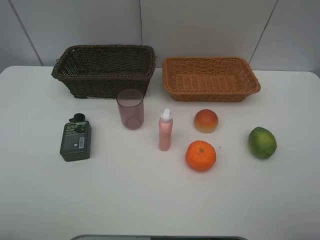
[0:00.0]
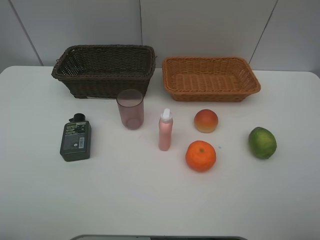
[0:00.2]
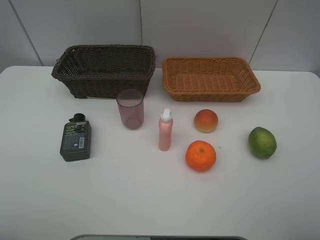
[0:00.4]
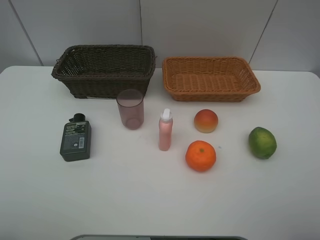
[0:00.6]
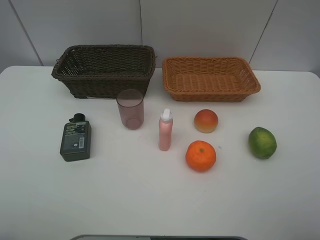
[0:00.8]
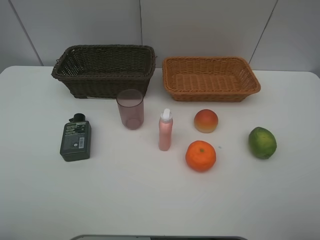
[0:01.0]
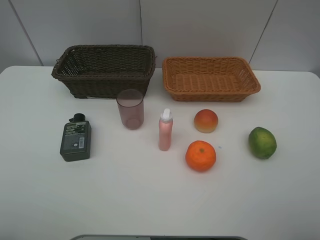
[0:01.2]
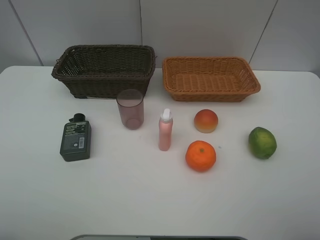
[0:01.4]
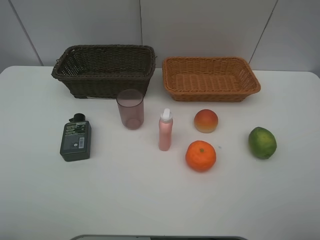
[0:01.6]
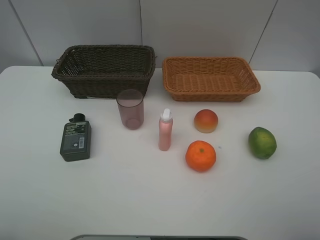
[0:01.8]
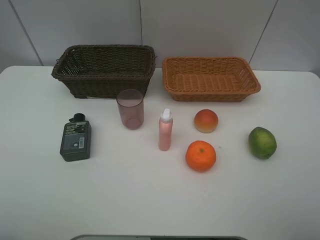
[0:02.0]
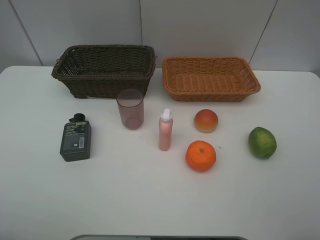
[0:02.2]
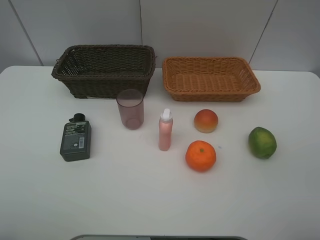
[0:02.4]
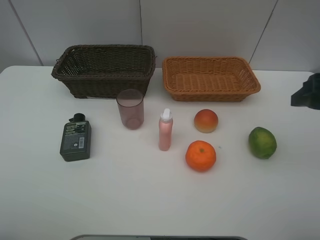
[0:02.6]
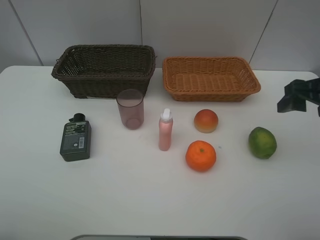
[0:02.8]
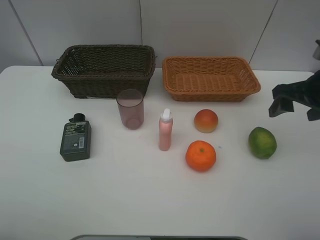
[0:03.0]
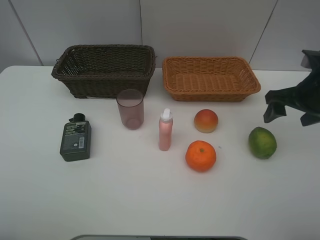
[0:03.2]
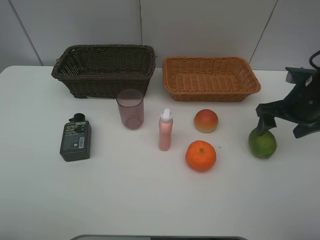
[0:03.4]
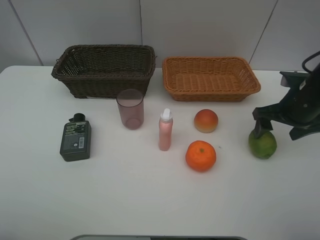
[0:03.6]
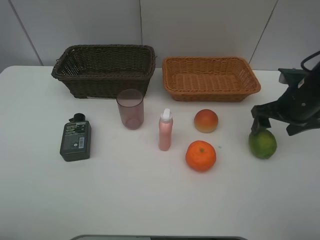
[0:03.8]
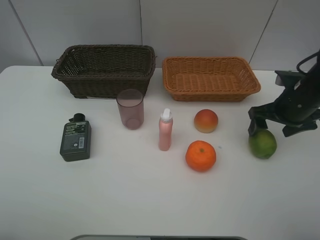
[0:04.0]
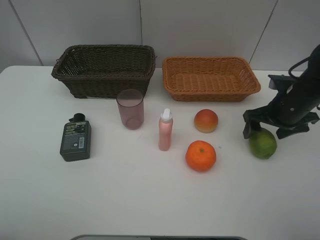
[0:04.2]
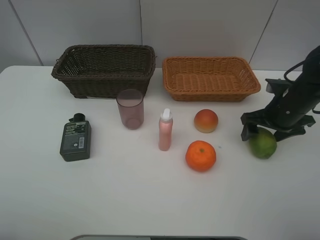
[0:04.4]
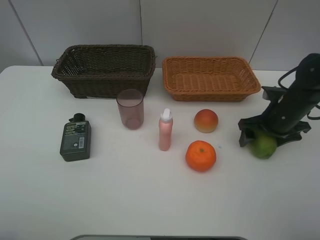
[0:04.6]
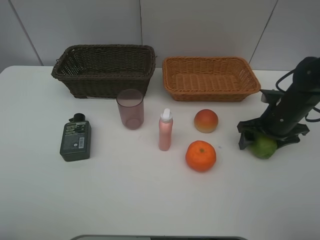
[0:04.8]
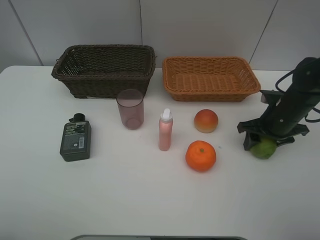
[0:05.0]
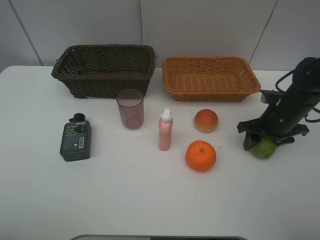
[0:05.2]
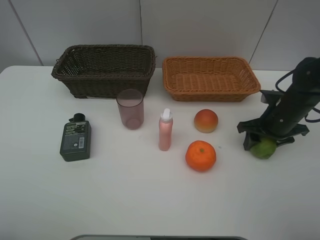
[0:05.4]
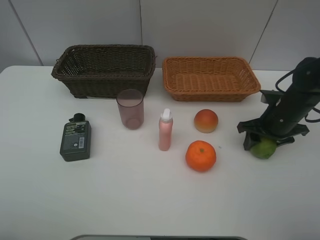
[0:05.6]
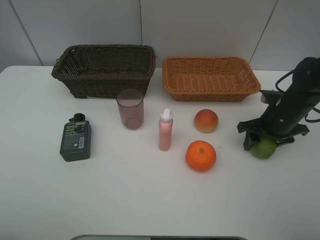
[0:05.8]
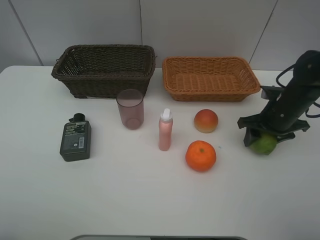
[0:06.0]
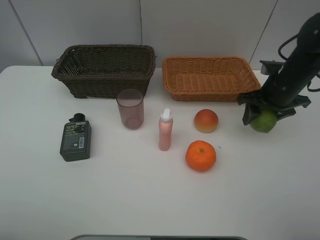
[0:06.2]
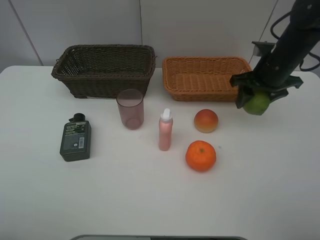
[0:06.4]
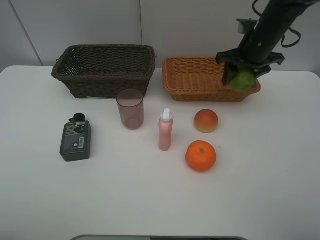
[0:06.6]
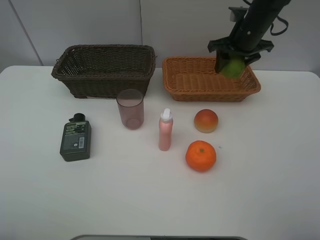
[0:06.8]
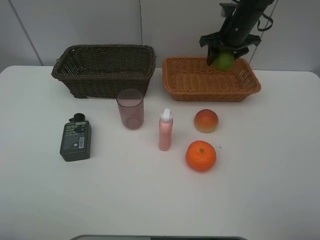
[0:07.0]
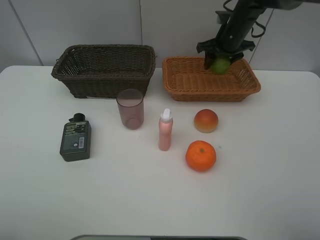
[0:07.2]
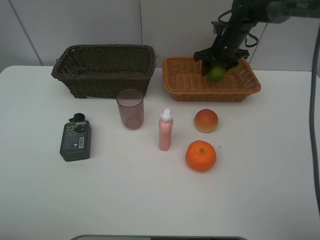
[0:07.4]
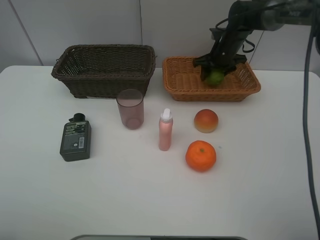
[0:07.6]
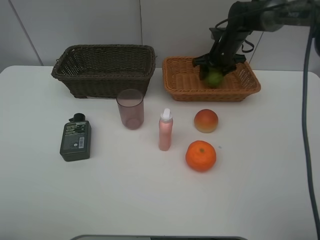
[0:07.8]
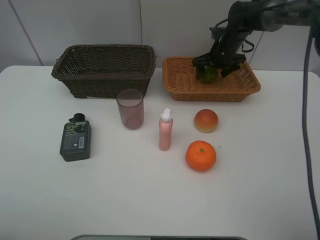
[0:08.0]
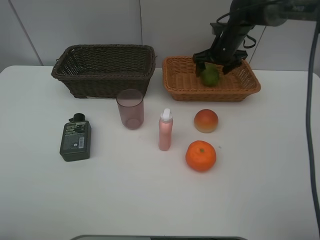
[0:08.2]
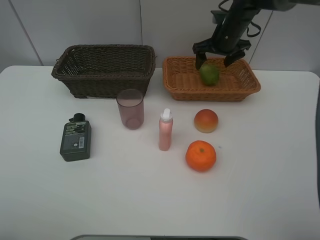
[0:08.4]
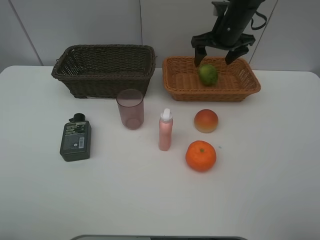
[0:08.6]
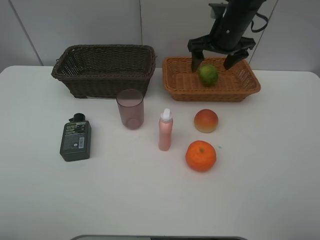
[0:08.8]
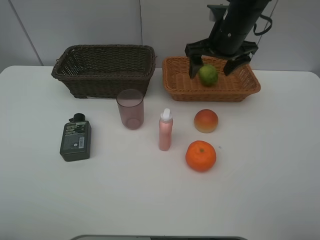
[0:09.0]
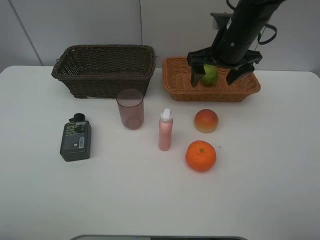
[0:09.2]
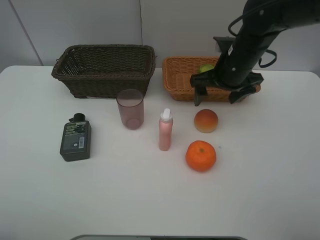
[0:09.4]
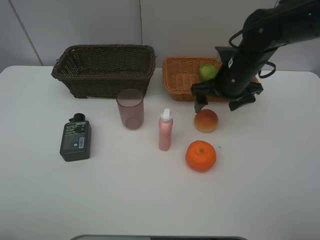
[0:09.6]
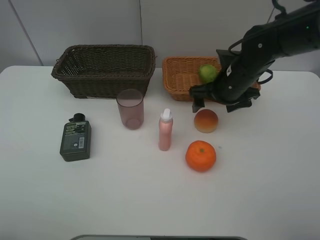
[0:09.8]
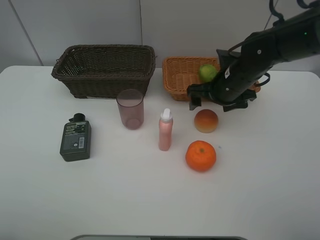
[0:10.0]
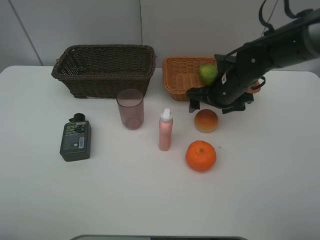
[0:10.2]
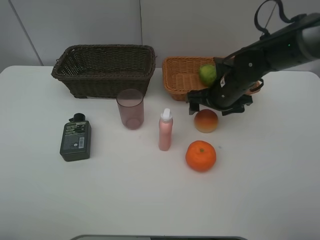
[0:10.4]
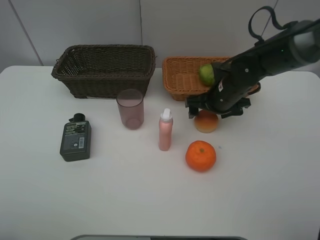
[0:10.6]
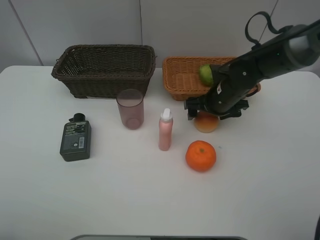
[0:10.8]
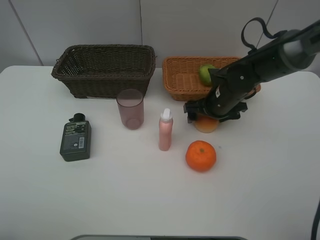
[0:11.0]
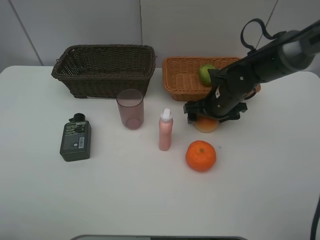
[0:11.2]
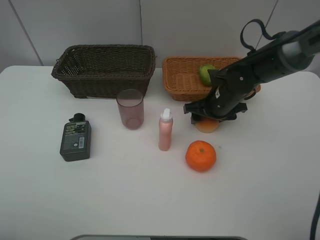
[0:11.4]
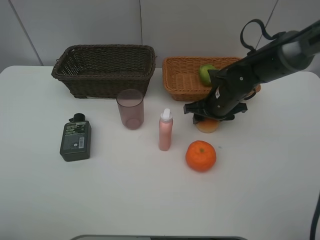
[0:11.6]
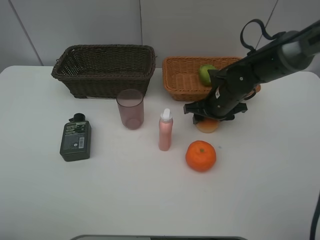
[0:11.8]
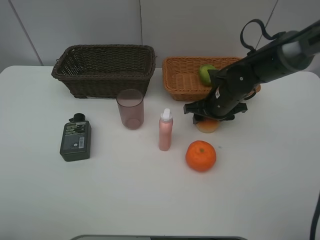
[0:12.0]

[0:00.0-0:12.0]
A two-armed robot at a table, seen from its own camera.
Task of the whole recording: place multiple objects separately in different baskets.
0:00.0 to 0:01.6: The two grippers keep their place.
0:01.6 to 0:03.0: The right gripper shifts roughly 25 cm forward.
0:03.0 to 0:04.4: The right gripper heads downward, covering about 10 cm.
0:04.4 to 0:06.0: The right gripper closes up.
0:06.0 to 0:07.6: The right gripper moves forward and to the left, roughly 20 cm.
0:07.6 to 0:09.0: The right gripper goes about 15 cm backward and upward, and opens its fingers.
0:09.0 to 0:10.4: The right gripper shifts about 10 cm downward.
0:10.4 to 0:12.0: The right gripper closes.

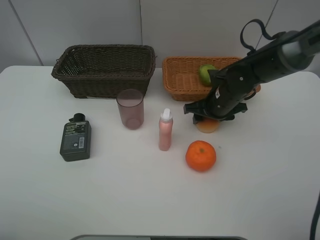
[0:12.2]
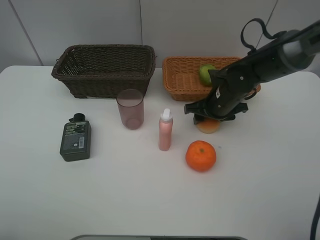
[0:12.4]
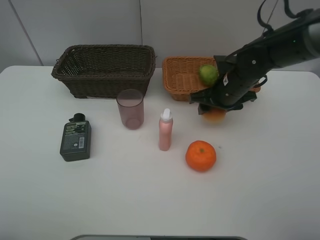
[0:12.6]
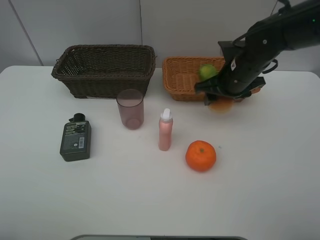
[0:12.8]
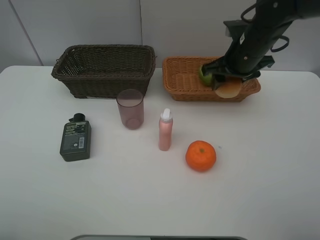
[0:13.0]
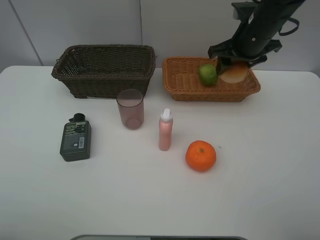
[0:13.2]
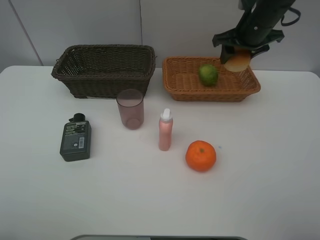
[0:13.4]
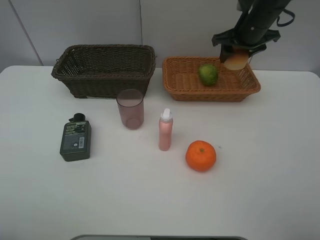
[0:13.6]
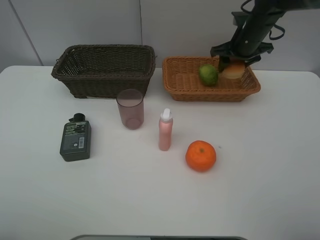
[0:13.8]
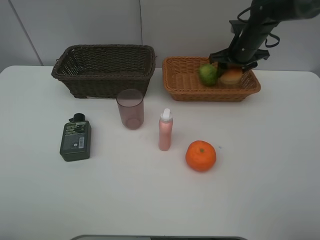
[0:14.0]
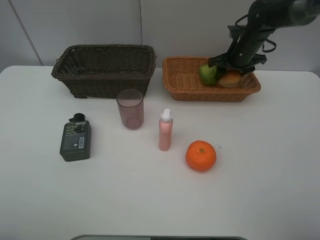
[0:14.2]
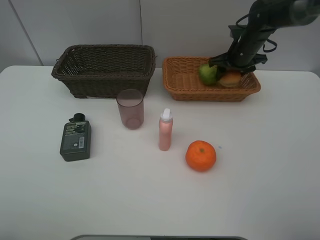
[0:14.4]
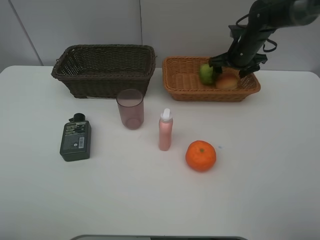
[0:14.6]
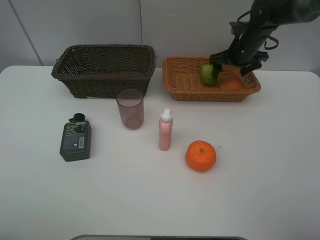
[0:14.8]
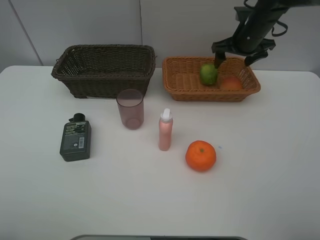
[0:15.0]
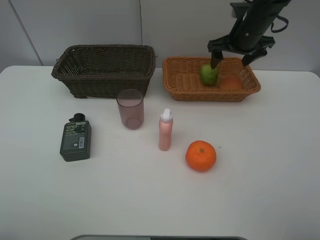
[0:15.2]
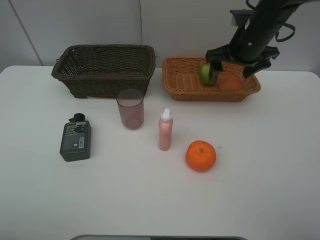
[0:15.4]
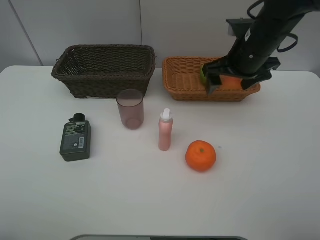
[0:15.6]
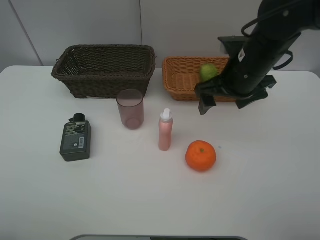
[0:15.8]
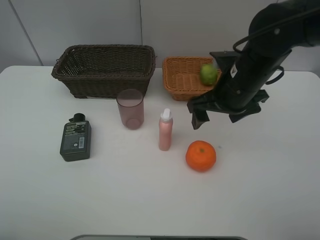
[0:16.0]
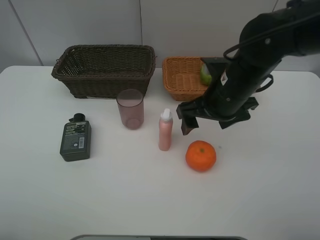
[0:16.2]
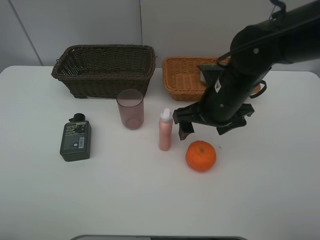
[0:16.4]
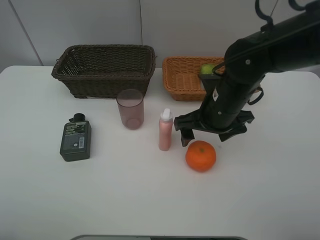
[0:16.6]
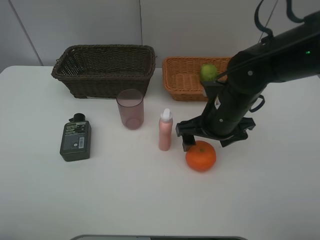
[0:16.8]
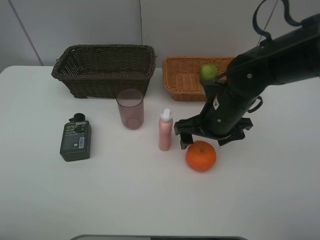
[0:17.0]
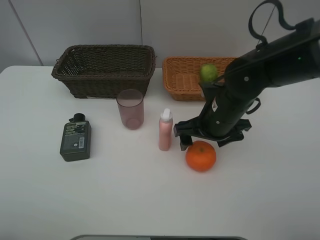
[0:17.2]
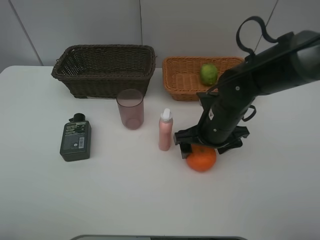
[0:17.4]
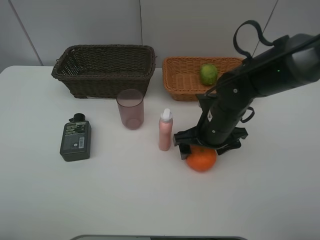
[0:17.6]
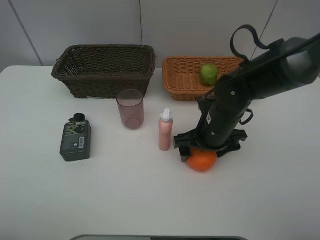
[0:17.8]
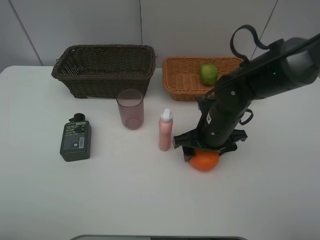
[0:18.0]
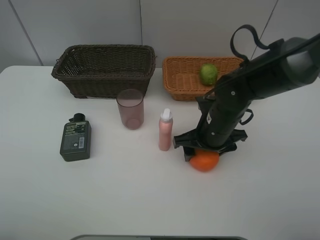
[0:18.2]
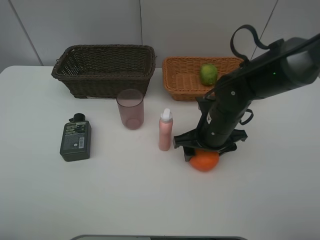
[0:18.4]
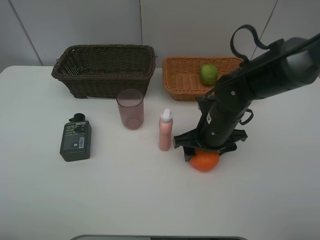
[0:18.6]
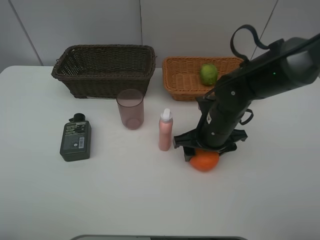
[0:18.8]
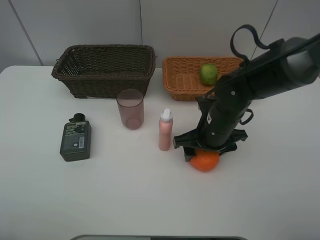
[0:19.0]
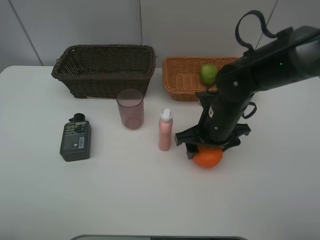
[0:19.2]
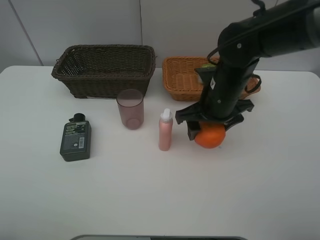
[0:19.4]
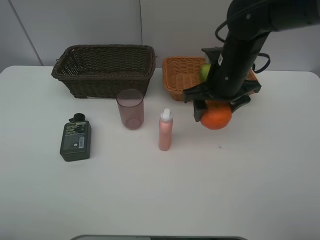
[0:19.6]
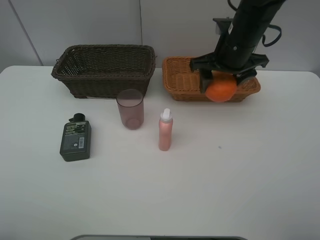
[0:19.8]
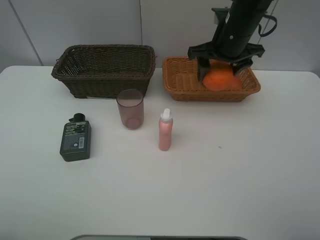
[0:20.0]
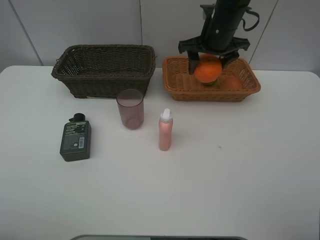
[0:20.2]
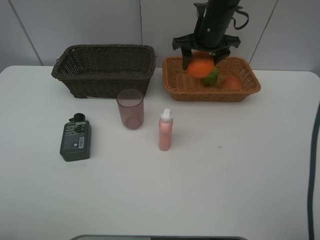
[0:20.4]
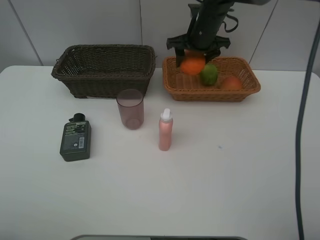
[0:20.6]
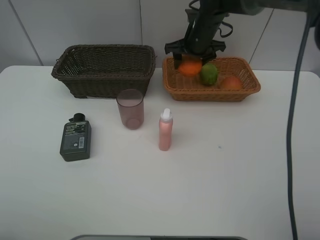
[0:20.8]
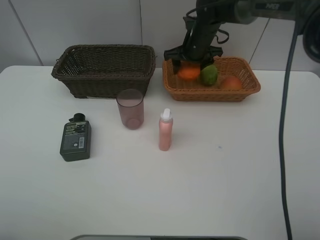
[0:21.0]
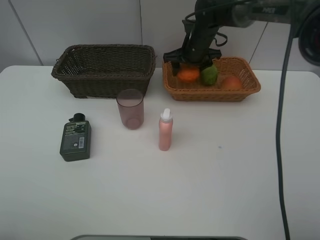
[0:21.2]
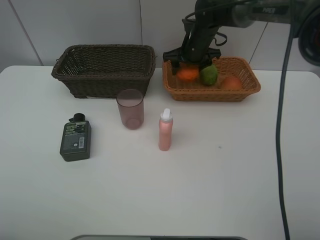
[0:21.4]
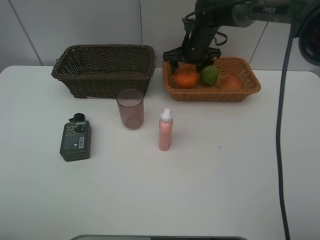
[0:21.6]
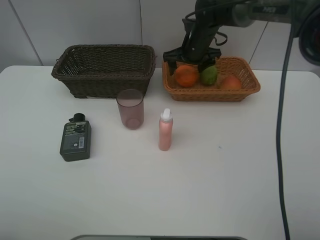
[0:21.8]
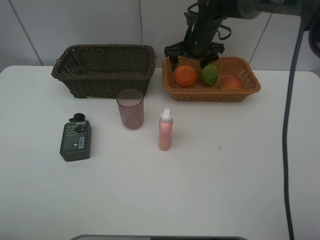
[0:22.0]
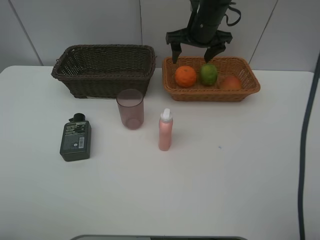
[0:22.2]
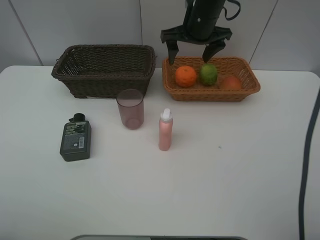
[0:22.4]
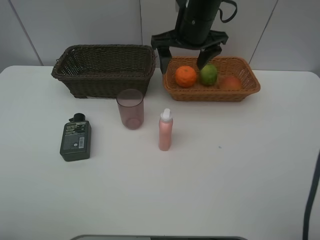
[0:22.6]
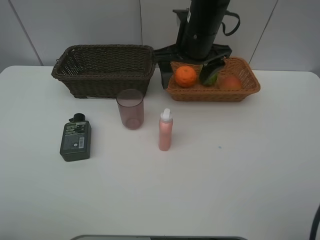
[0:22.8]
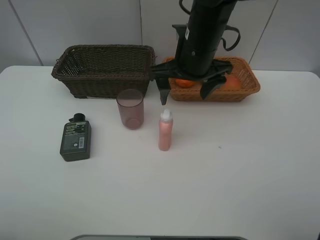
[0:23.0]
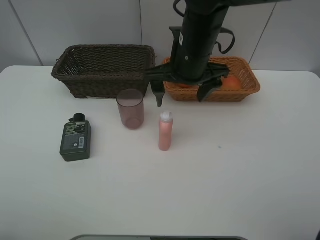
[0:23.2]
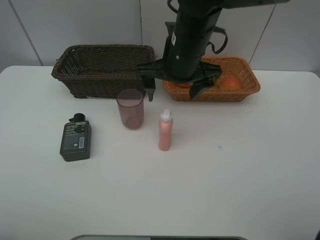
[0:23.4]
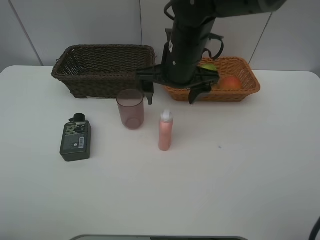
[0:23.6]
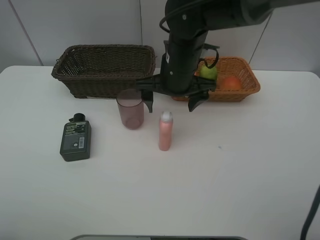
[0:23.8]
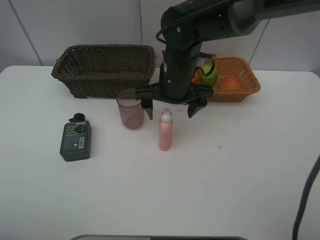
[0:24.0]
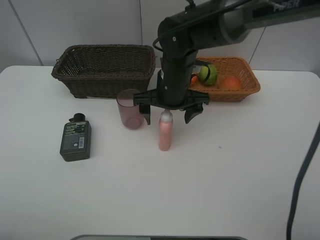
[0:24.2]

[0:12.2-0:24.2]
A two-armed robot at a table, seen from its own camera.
Task of the whole recording: place multiple objects separately in different baskets.
0:12.2 to 0:13.8: The right gripper heads forward, upward and to the right, covering some 15 cm.
0:13.8 to 0:15.2: The right gripper changes place by some 5 cm, and opens its fingers.
0:15.2 to 0:16.6: The right gripper shifts roughly 20 cm backward, to the left and downward.
0:16.6 to 0:18.2: The right gripper goes about 5 cm downward.
0:18.2 to 0:19.8: The right gripper moves upward and forward, roughly 15 cm.
0:19.8 to 0:21.2: The right gripper moves forward and downward, approximately 15 cm.
0:21.2 to 0:22.6: The right gripper heads backward and upward, covering roughly 15 cm.
0:22.6 to 0:24.2: The right gripper heads downward and backward, covering some 10 cm.
